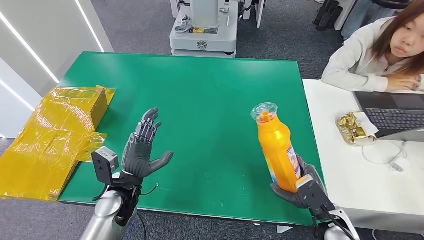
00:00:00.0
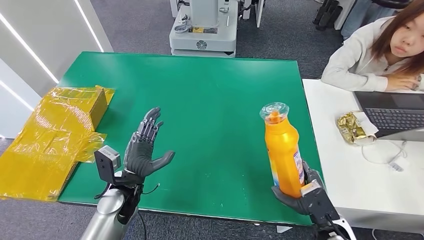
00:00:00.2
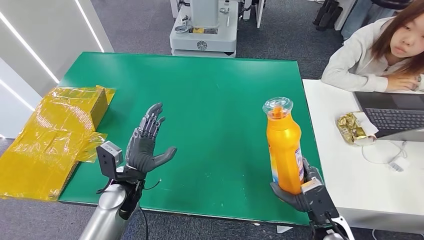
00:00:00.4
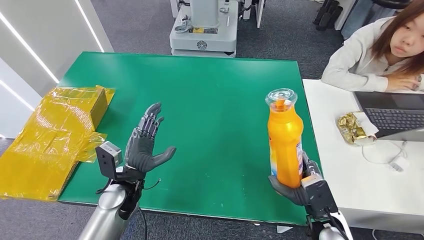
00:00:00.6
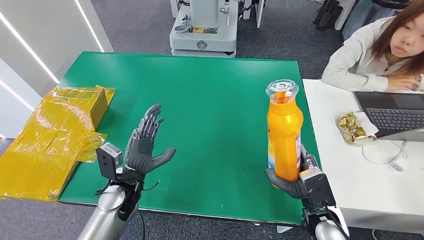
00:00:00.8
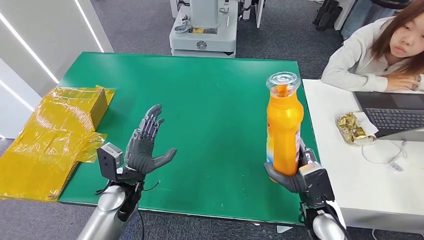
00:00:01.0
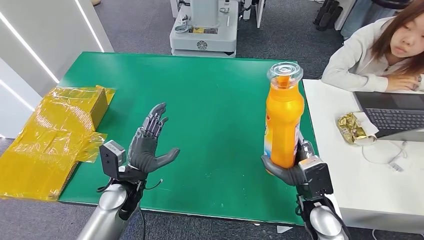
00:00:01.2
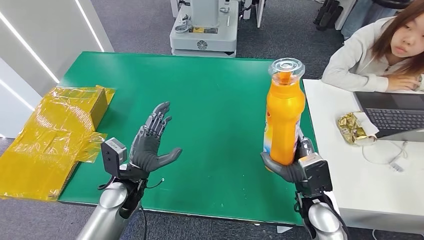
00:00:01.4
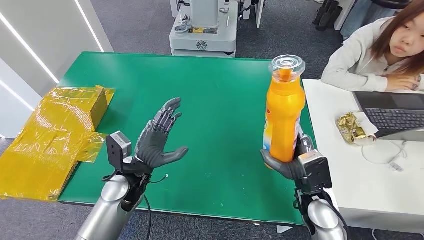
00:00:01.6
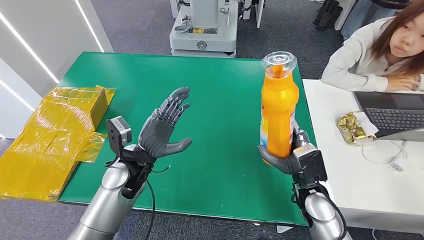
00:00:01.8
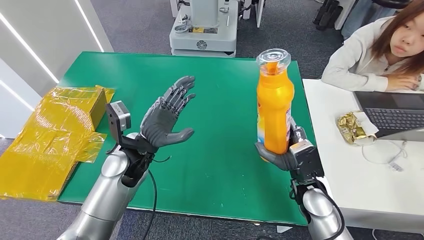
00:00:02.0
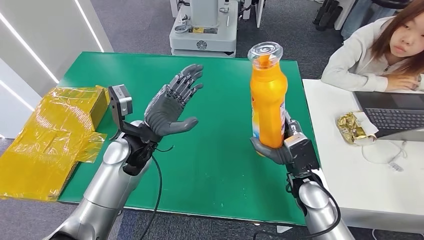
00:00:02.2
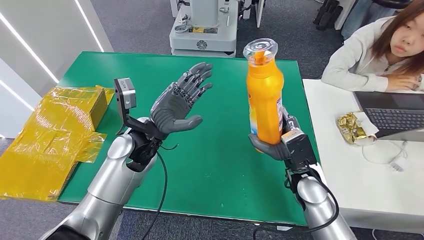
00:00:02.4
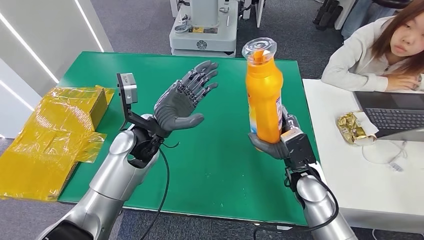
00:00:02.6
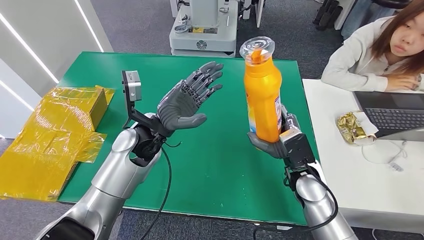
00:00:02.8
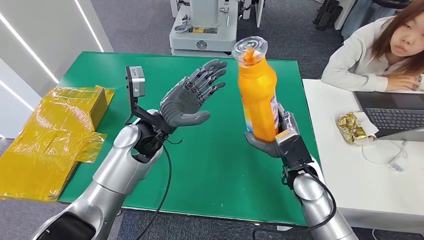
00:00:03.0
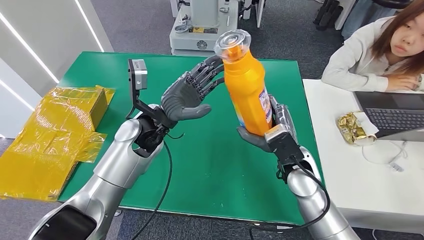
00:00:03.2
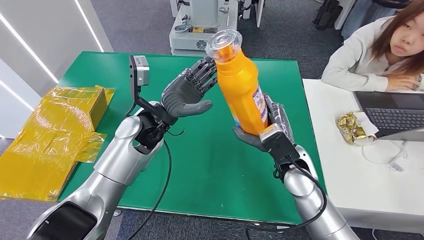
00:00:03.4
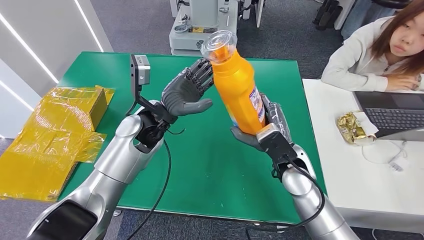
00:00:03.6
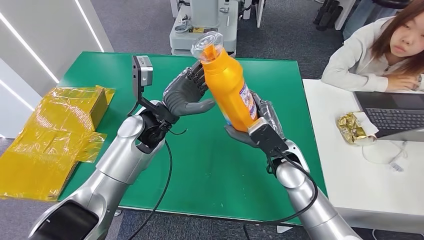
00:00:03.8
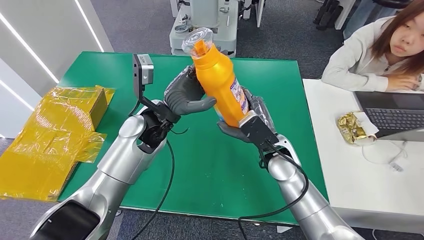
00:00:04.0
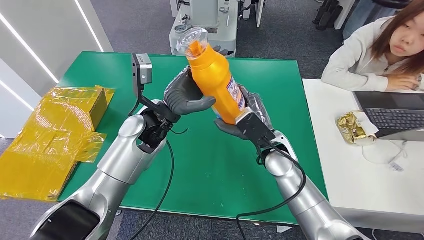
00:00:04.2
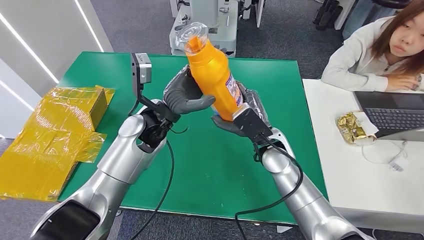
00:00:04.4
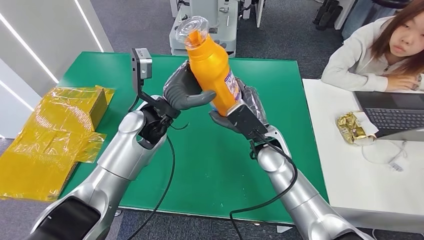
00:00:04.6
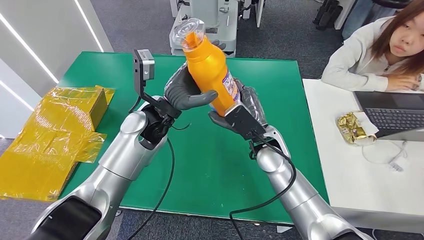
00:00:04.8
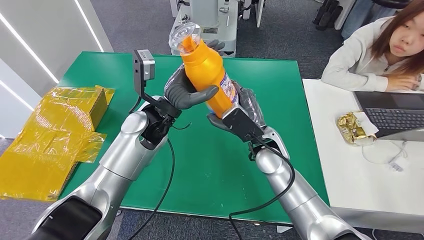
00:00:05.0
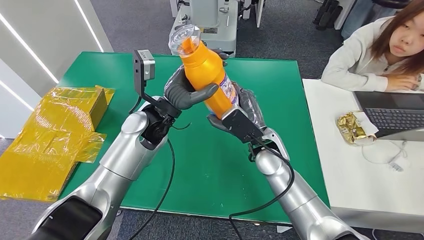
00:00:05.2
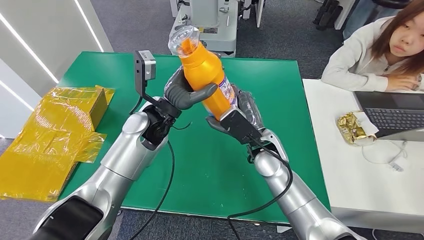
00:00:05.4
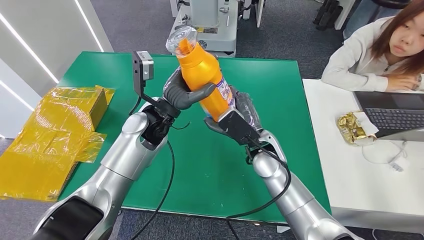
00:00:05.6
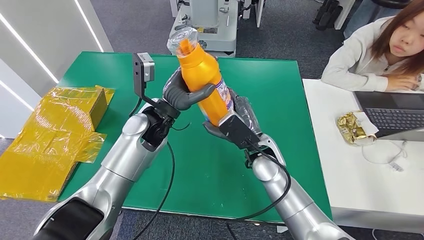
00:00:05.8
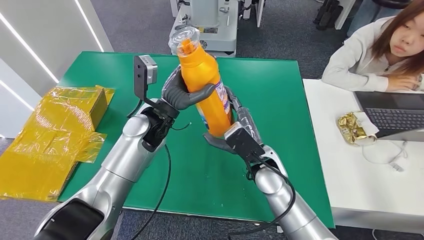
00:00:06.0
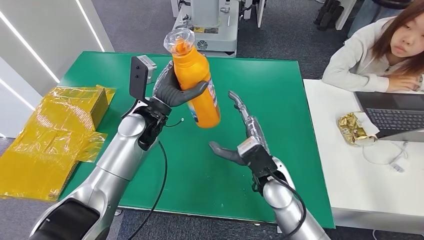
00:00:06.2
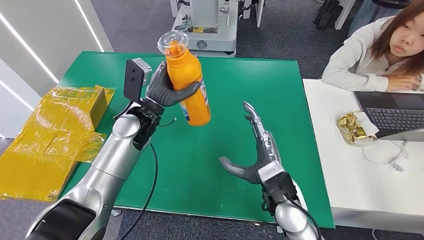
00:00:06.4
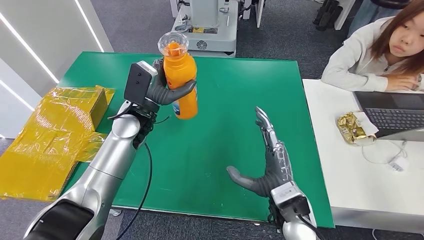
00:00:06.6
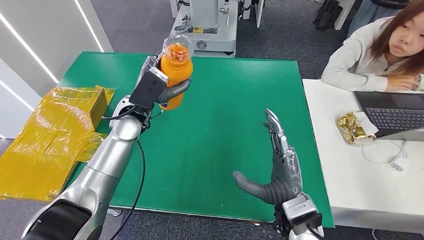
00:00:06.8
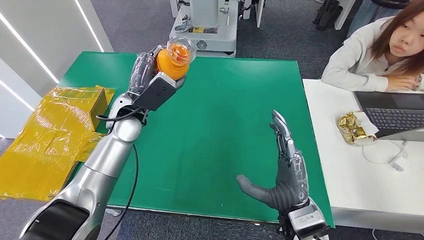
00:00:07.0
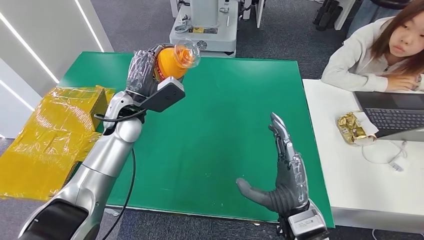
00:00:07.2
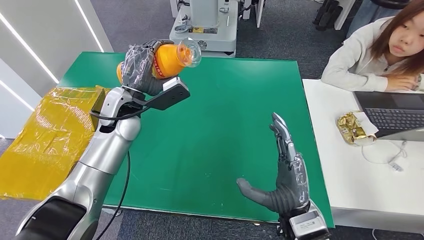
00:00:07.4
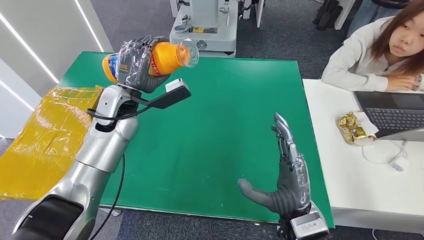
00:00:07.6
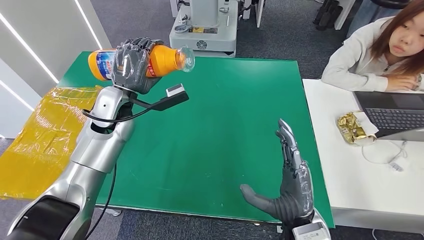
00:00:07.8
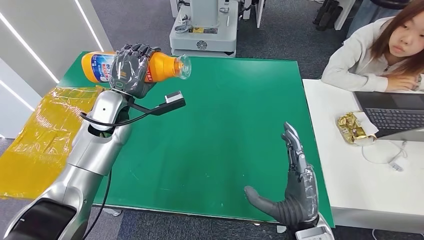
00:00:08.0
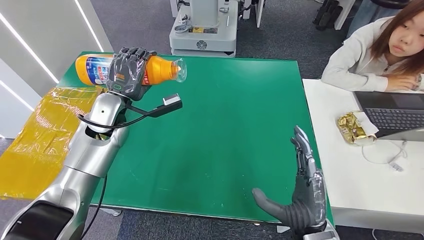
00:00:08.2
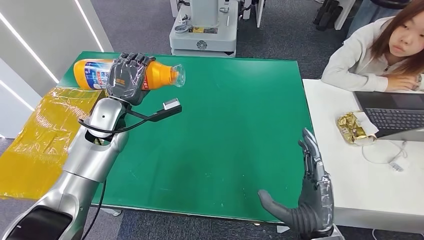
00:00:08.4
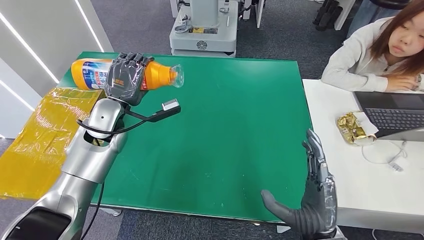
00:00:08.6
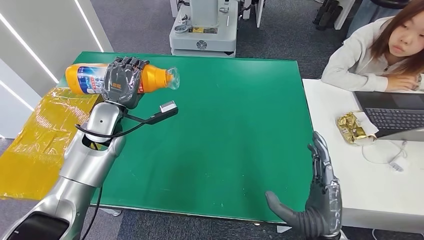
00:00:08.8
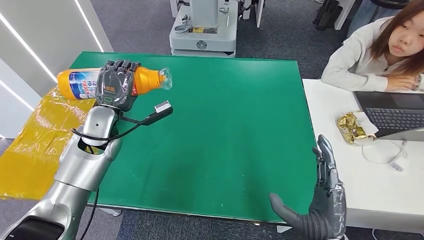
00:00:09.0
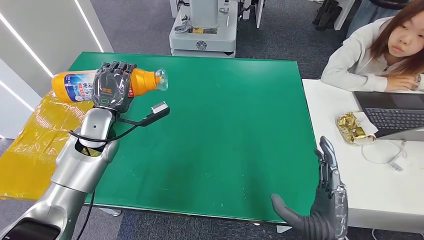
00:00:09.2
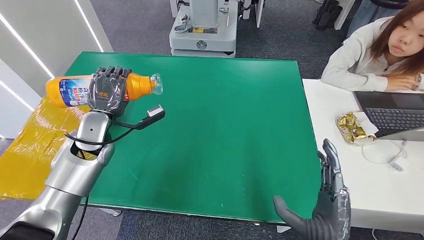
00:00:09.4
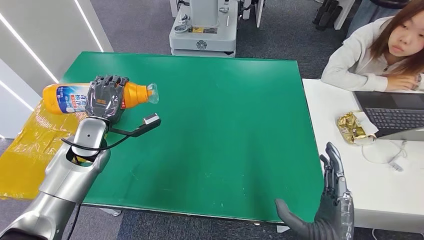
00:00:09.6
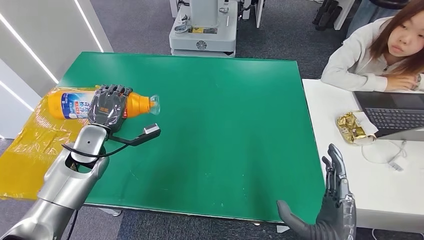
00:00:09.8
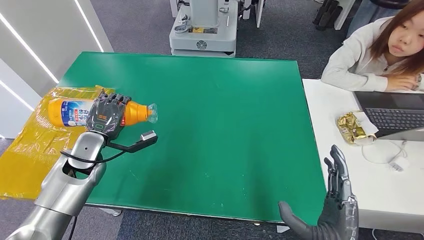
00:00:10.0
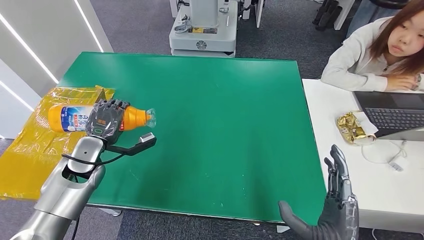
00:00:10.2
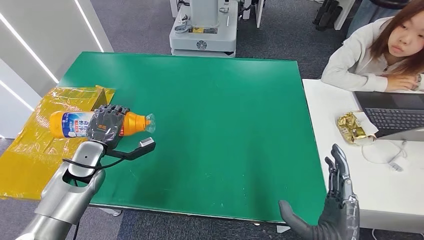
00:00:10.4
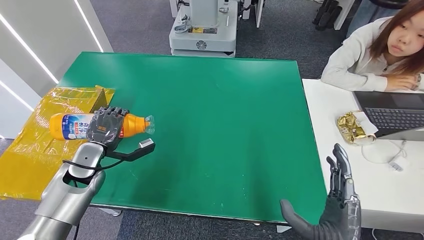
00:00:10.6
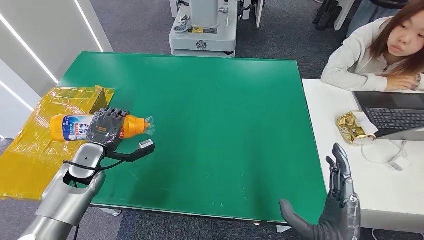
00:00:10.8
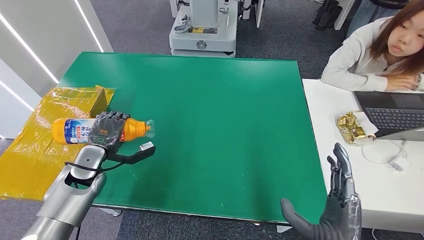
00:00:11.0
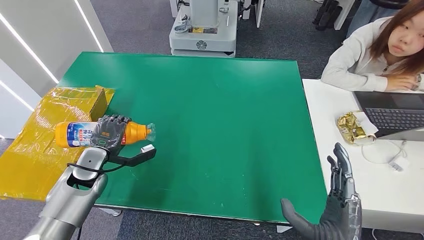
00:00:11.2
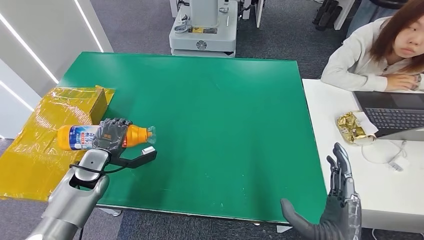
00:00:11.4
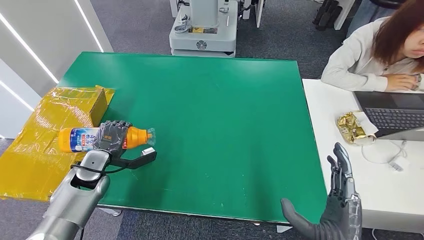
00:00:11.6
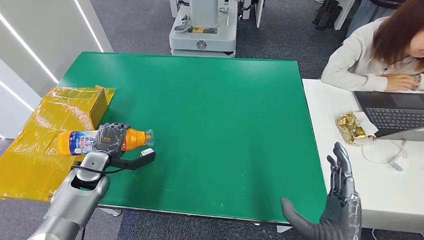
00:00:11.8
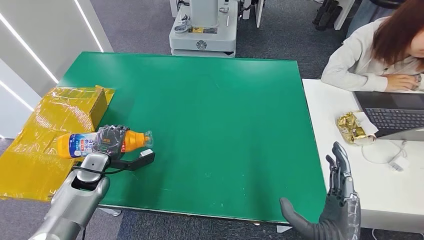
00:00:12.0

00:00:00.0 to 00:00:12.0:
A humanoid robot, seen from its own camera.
00:00:00.0 to 00:00:01.6: The right hand heads to the left and forward, covering approximately 10 cm.
00:00:01.6 to 00:00:03.0: The right hand travels forward by about 5 cm. The left hand shifts approximately 10 cm upward and forward.
00:00:03.0 to 00:00:04.4: The right hand moves to the left, approximately 10 cm.
00:00:04.4 to 00:00:06.0: The hands move only a little.
00:00:07.6 to 00:00:09.0: The left hand shifts by approximately 5 cm; the right hand travels backward by some 5 cm.
00:00:09.0 to 00:00:10.4: The left hand shifts roughly 10 cm downward, to the left and backward.
00:00:10.4 to 00:00:12.0: The left hand goes approximately 5 cm downward.

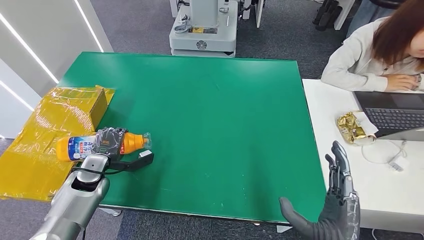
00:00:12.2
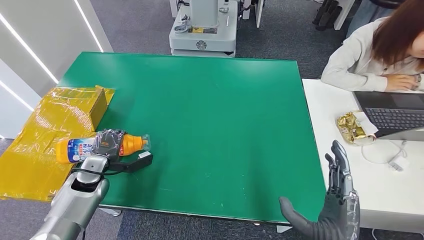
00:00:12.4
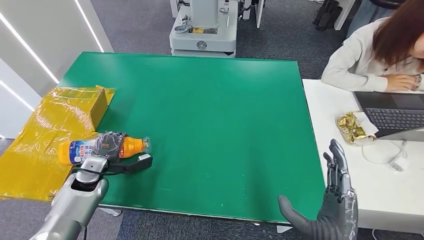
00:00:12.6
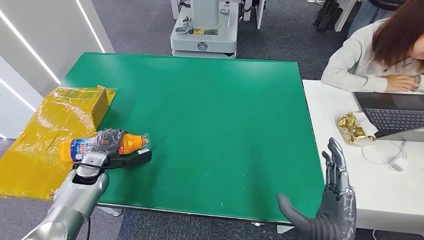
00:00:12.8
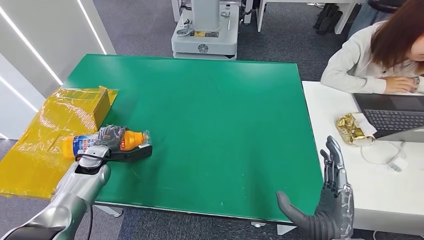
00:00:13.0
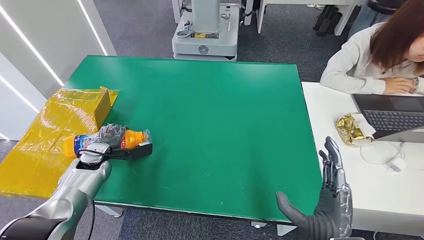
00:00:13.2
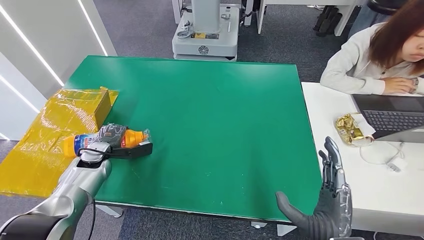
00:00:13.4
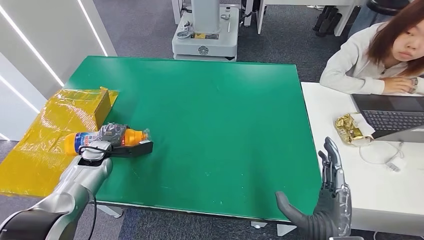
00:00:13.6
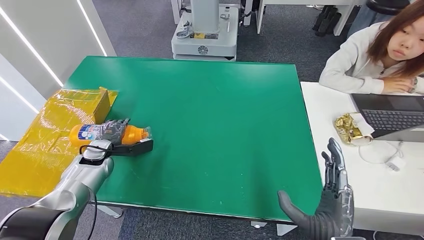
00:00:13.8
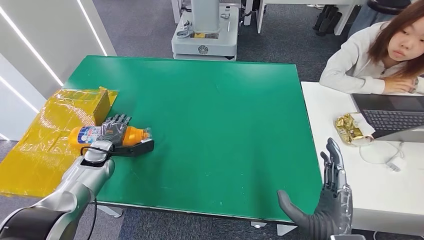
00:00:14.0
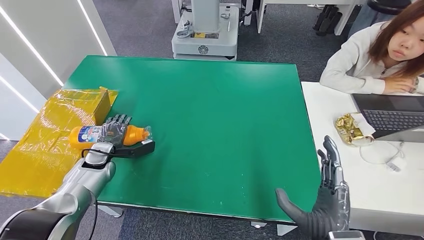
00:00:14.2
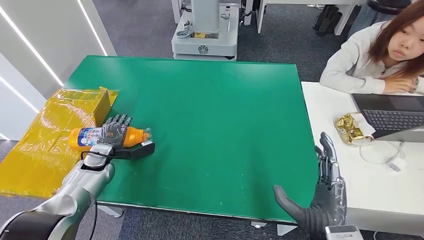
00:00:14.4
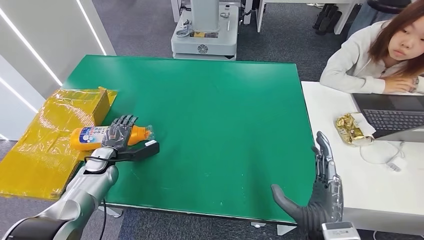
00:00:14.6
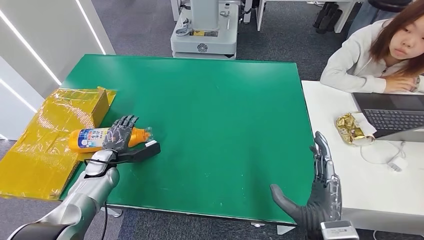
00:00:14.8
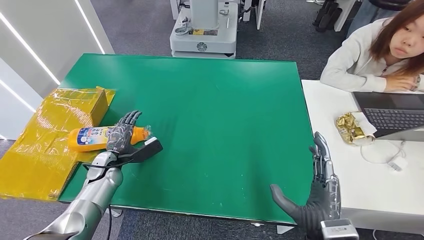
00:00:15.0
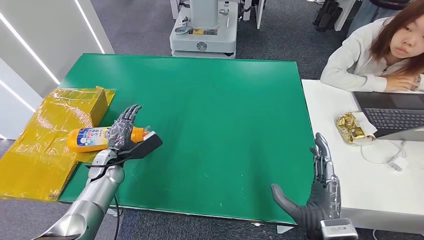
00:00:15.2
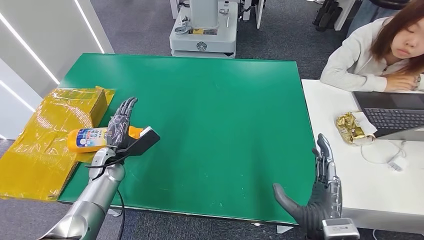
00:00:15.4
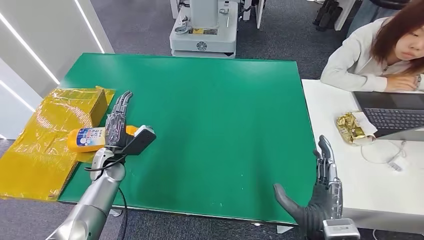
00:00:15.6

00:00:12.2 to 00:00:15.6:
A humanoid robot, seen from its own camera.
Step, 00:00:12.2 to 00:00:15.4: Turn the bottle to the front side.

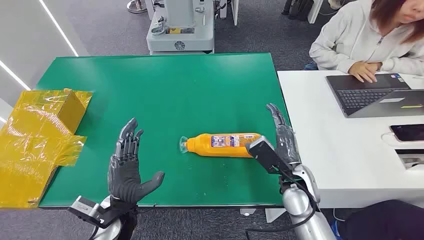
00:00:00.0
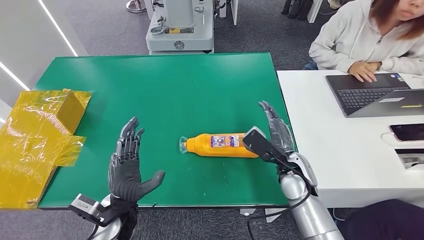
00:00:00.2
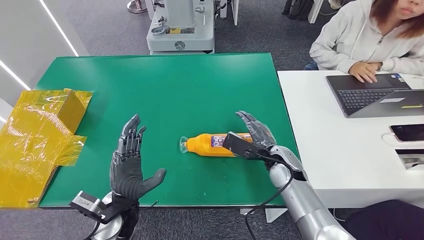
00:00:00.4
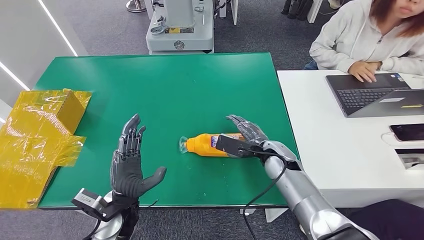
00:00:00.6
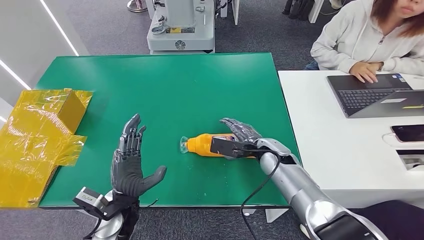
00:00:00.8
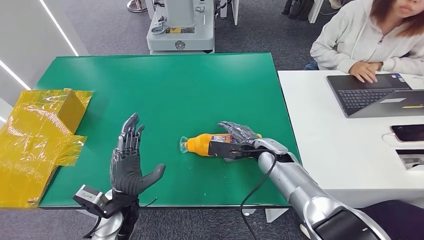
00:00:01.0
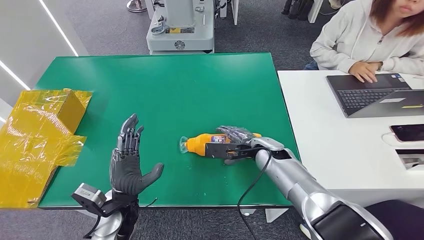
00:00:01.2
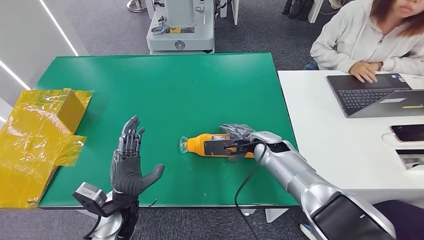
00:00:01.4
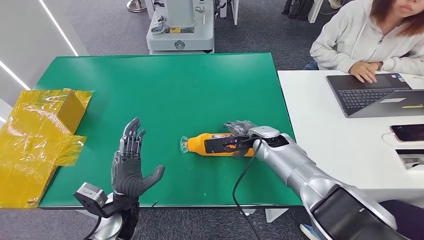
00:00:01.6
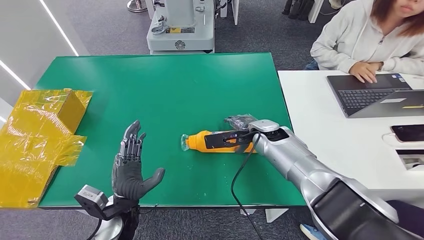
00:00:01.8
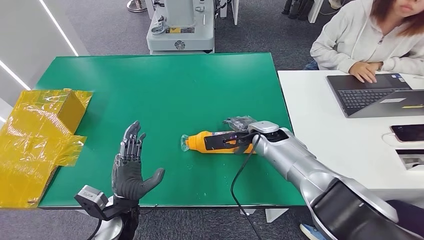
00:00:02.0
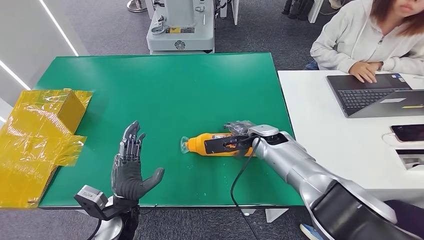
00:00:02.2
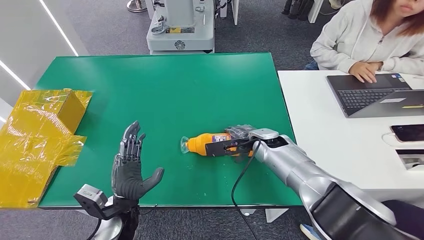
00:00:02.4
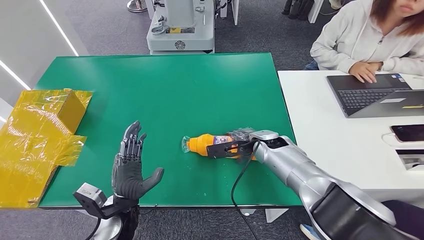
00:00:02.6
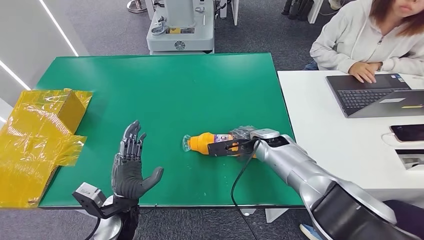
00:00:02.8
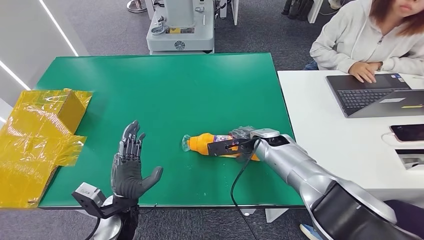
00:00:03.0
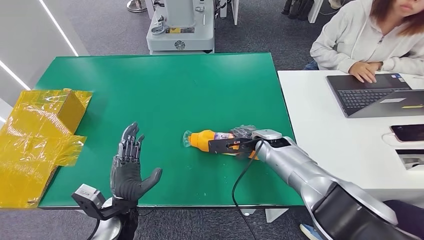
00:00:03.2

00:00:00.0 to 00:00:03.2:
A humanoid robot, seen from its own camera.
00:00:01.6 to 00:00:03.2: The hands stay close to where they were, moving slightly.
